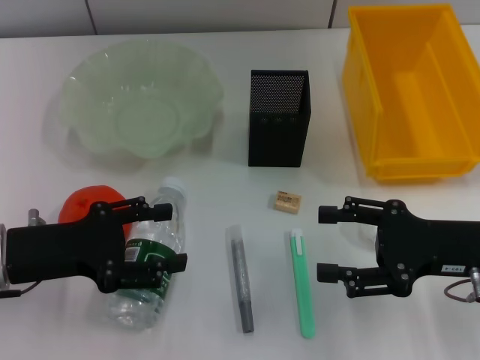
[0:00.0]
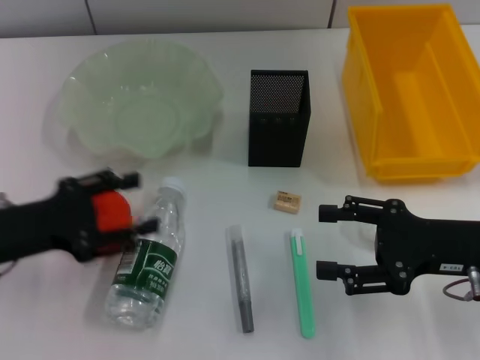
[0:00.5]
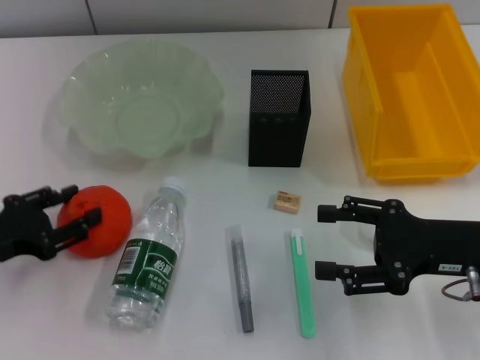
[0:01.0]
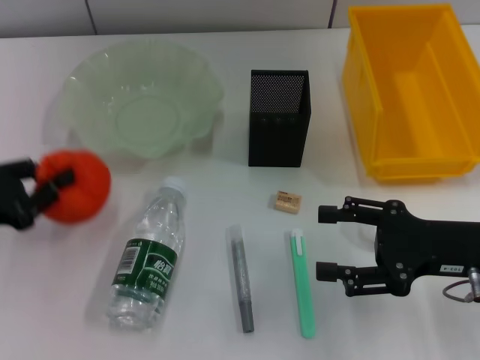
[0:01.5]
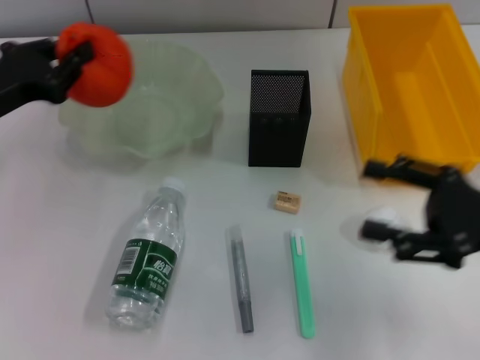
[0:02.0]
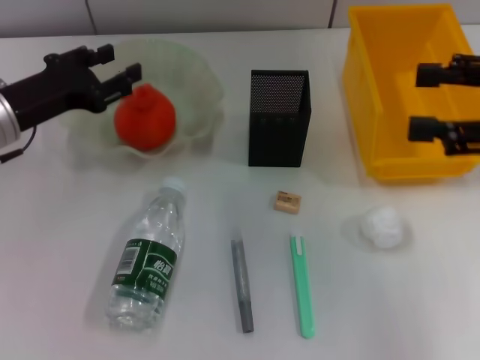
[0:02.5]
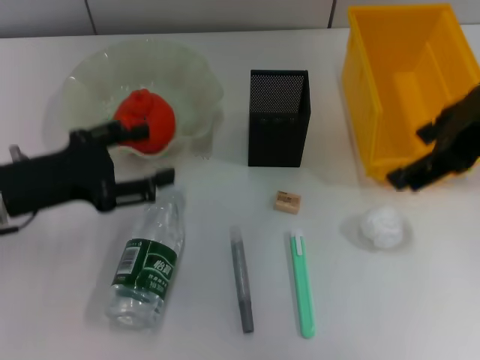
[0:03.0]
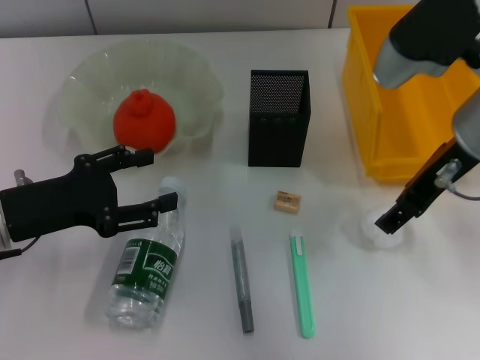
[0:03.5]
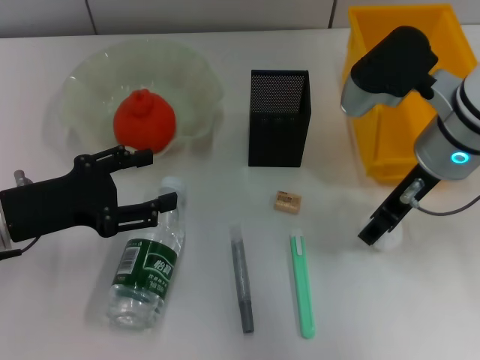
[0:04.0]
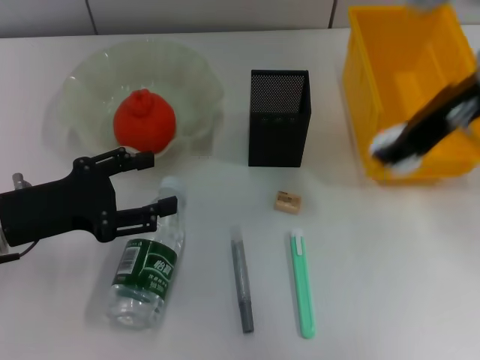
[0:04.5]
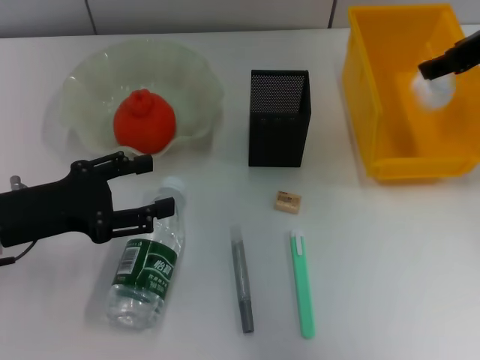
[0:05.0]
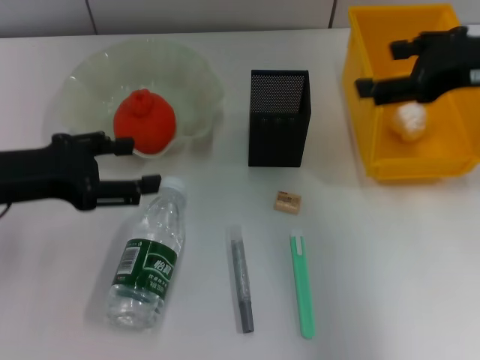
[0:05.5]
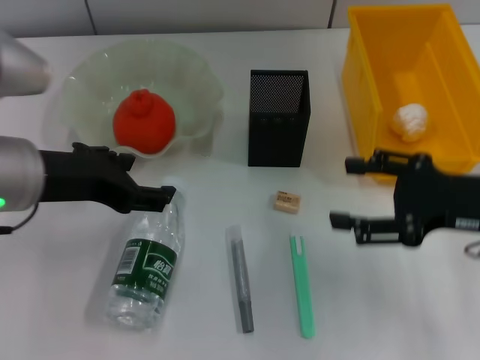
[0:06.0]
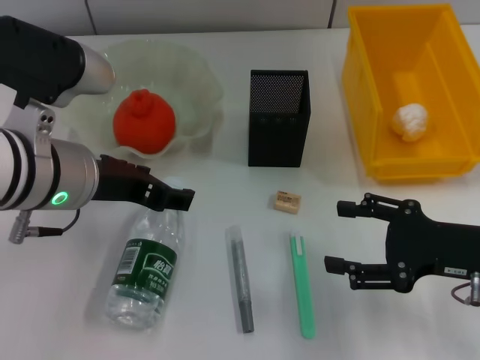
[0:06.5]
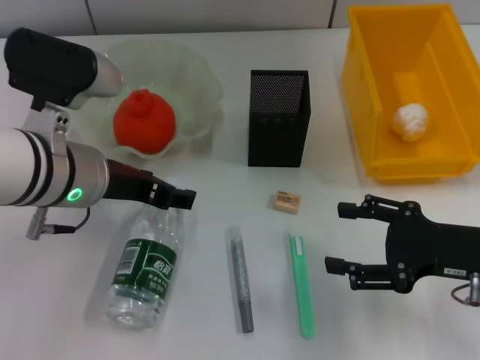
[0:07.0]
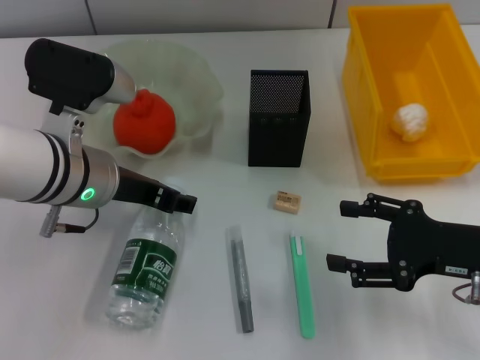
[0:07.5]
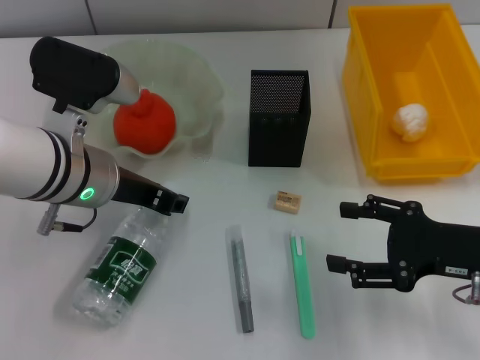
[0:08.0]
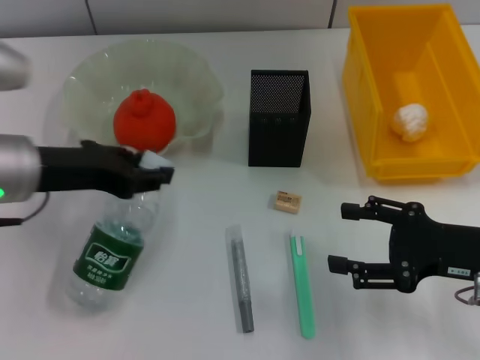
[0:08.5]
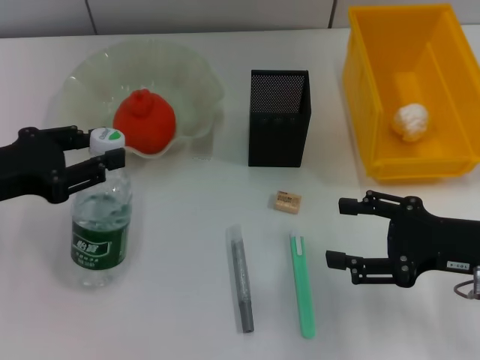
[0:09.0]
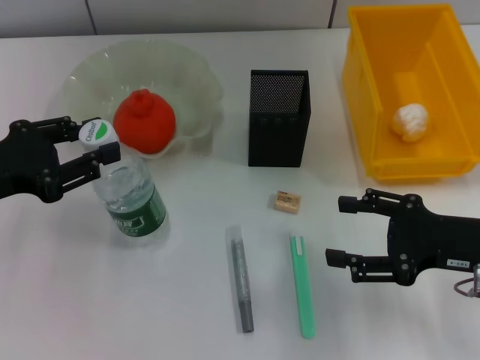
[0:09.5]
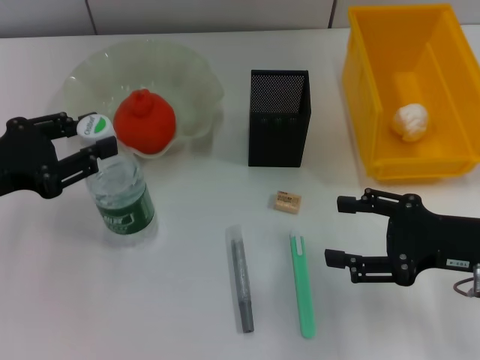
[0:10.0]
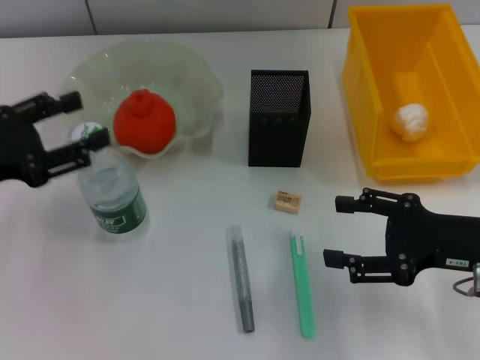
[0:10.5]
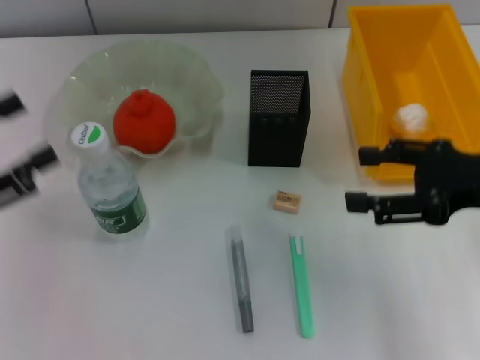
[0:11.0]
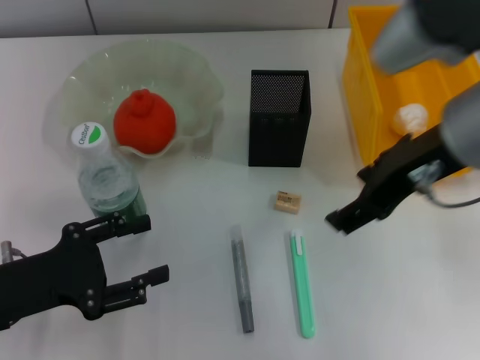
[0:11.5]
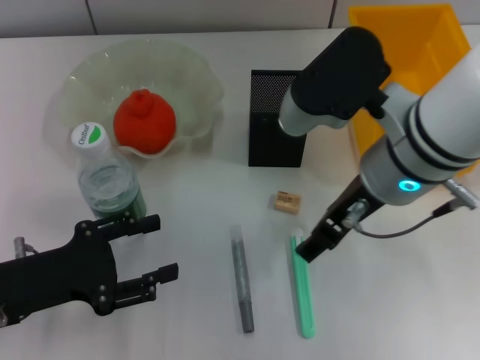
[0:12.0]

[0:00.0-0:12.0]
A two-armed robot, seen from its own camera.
Step, 0:00.0 to 0:01.0: Grab the orange with the left hand.
Step, 0:01.5 to 0:02.5: Place the orange into the fruit bowl with the left hand.
Step, 0:03.0 to 0:03.5: Grab the paper ball with the right hand.
Step, 0:04.5 to 0:05.0: Place the paper ball into the trash can with the right hand.
Step, 0:05.5 to 0:08.0: Grab the water bottle with the left hand.
Step, 0:08.5 to 0:10.0: Place the water bottle on the table with the left hand.
0:00.0 to 0:02.0: The left gripper goes roughly 10 cm forward, and closes its fingers.
0:02.0 to 0:04.0: The left gripper moves backward, roughly 5 cm, and opens up, while the right gripper heads to the left and forward, covering roughly 15 cm, and travels upward and back again, some 20 cm each way.
0:04.0 to 0:06.0: The left gripper is displaced upward and to the right by roughly 10 cm; the right gripper travels to the right and backward by approximately 15 cm, and reaches approximately 10 cm upward, then returns.
0:06.0 to 0:08.0: The right gripper changes place by some 5 cm; the left gripper heads downward, covering roughly 5 cm, and closes its fingers.
0:08.0 to 0:10.0: The left gripper goes roughly 15 cm to the left.
0:10.0 to 0:12.0: The left gripper moves downward and backward, approximately 10 cm, and opens. Meanwhile the right gripper shifts about 20 cm to the left and upward.

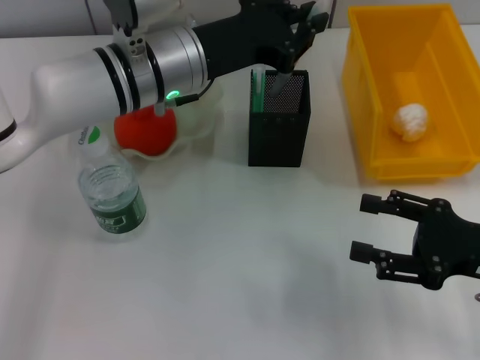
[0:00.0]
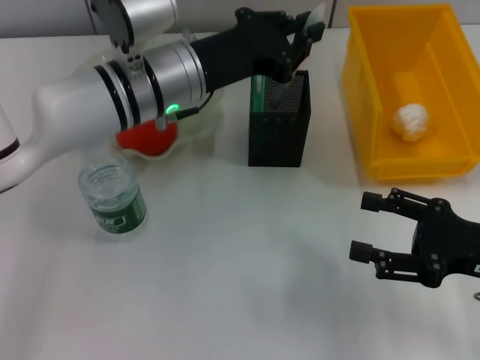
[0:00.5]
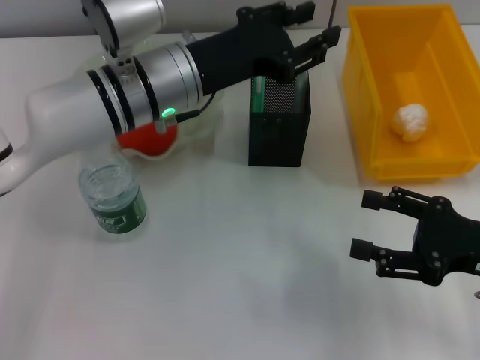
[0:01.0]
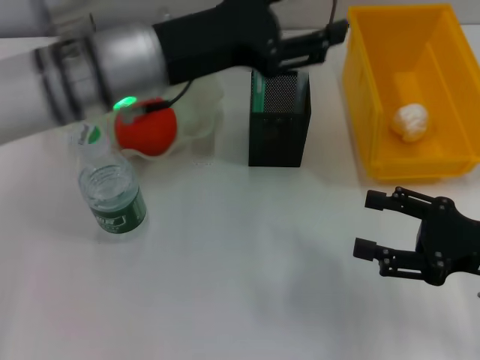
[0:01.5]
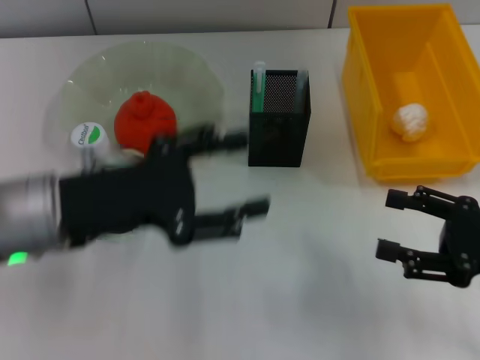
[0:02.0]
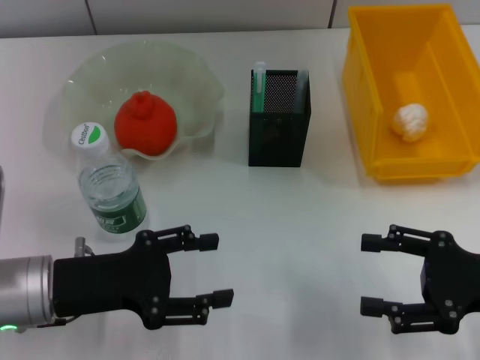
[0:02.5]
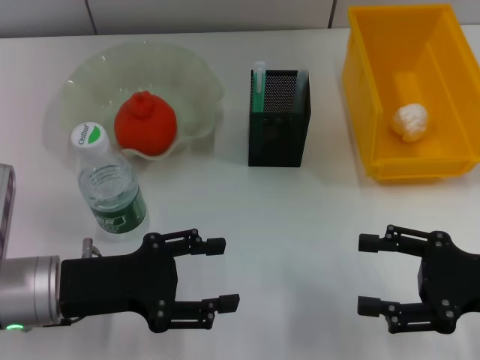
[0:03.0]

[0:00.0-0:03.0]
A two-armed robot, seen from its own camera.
0:00.0 to 0:01.5: The left gripper shifts by approximately 5 cm, and opens up.
0:01.5 to 0:03.0: The left gripper goes roughly 20 cm backward, downward and to the left.
